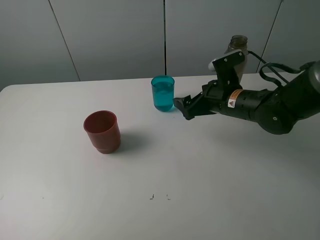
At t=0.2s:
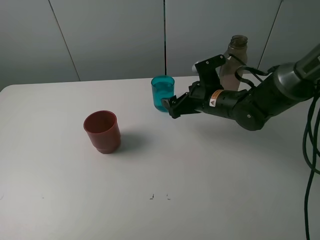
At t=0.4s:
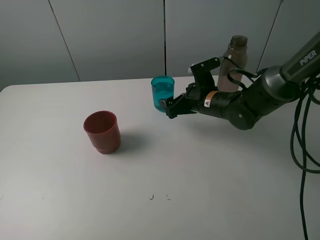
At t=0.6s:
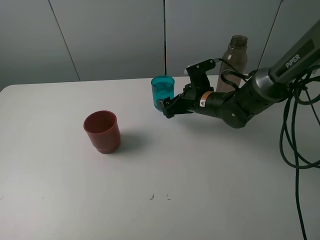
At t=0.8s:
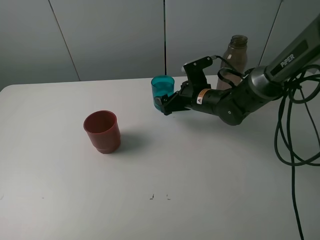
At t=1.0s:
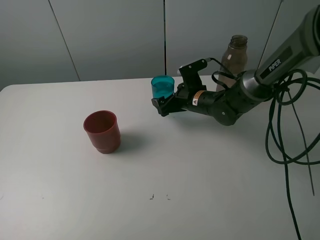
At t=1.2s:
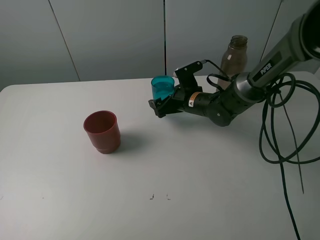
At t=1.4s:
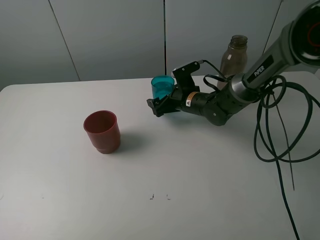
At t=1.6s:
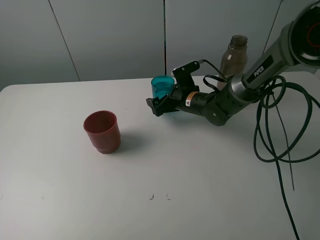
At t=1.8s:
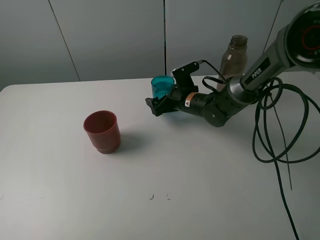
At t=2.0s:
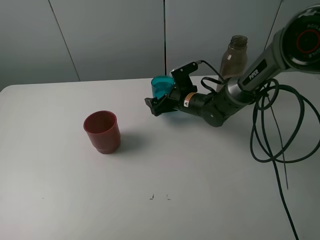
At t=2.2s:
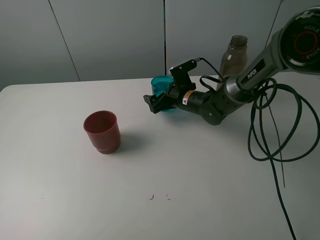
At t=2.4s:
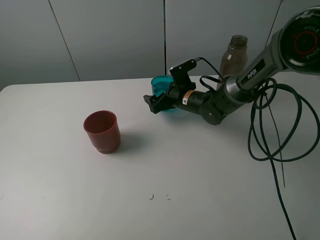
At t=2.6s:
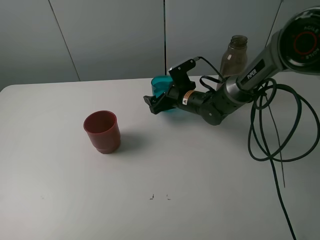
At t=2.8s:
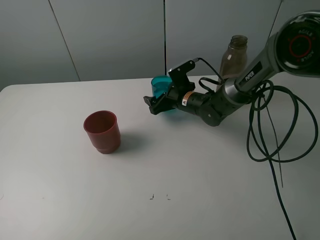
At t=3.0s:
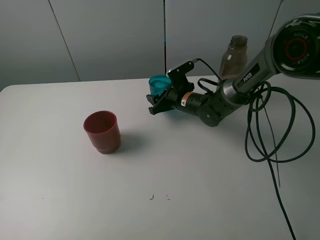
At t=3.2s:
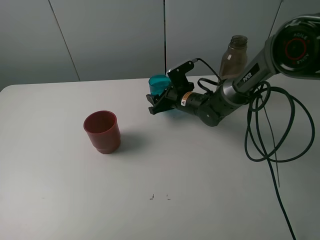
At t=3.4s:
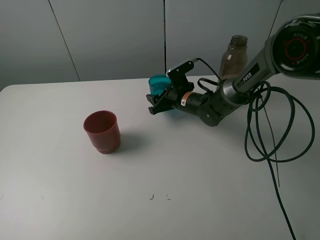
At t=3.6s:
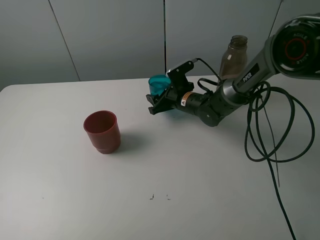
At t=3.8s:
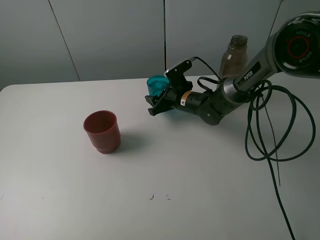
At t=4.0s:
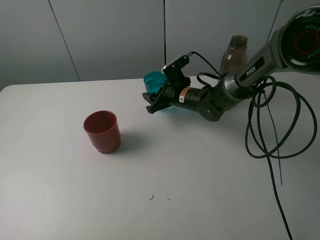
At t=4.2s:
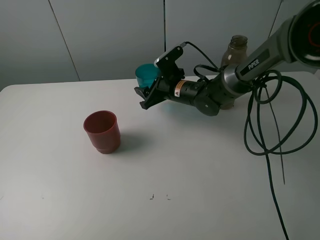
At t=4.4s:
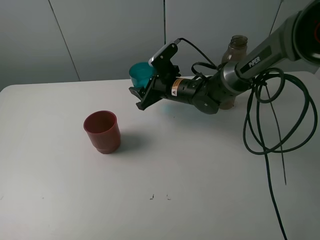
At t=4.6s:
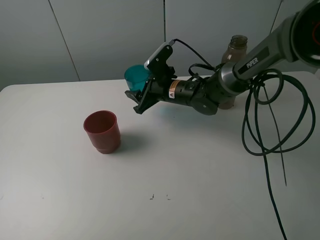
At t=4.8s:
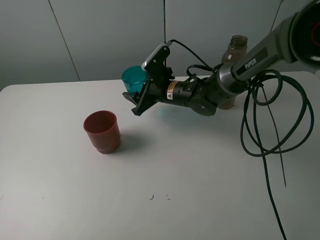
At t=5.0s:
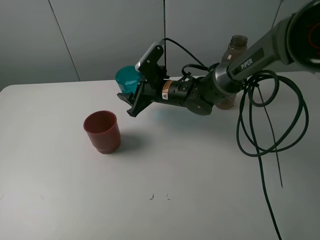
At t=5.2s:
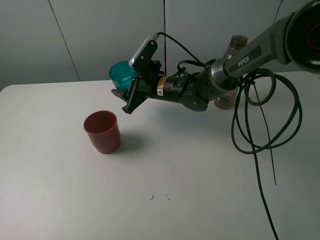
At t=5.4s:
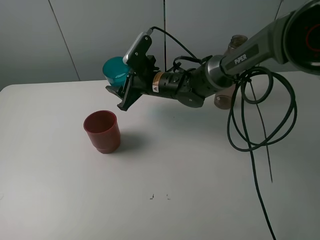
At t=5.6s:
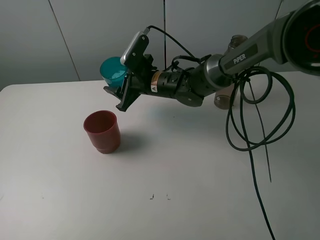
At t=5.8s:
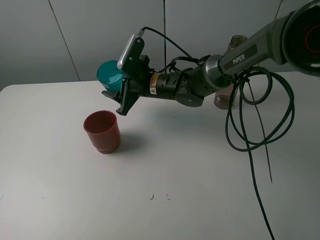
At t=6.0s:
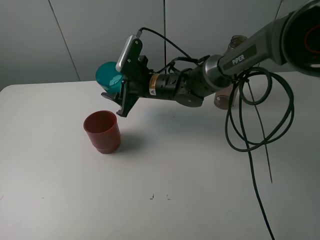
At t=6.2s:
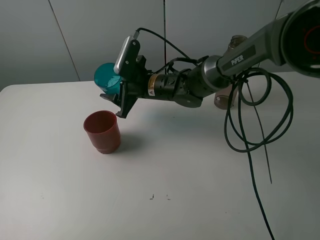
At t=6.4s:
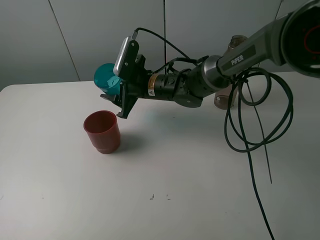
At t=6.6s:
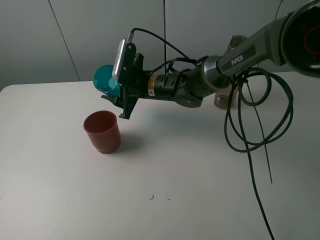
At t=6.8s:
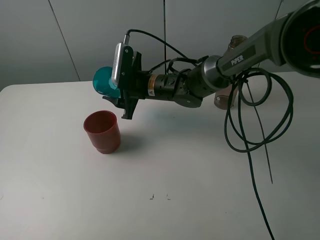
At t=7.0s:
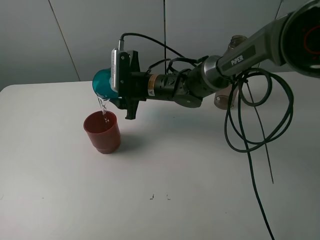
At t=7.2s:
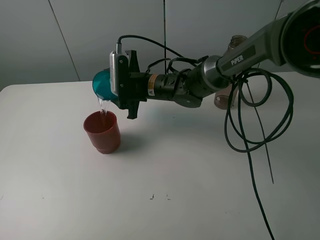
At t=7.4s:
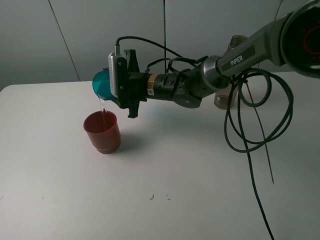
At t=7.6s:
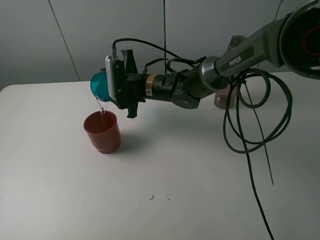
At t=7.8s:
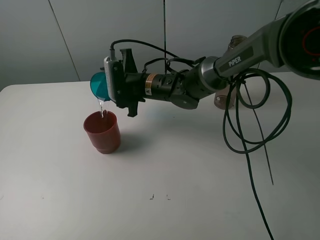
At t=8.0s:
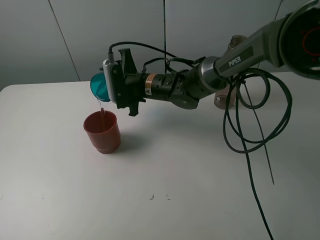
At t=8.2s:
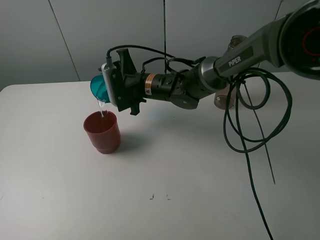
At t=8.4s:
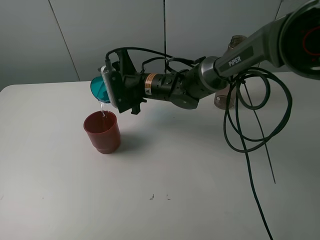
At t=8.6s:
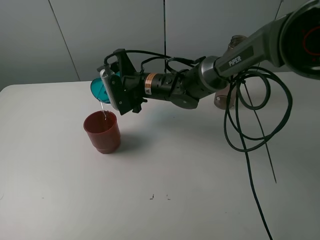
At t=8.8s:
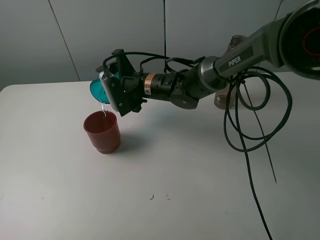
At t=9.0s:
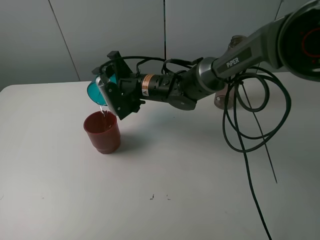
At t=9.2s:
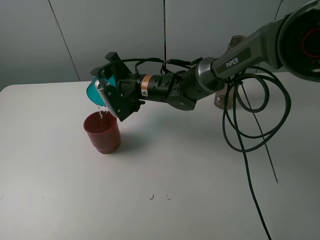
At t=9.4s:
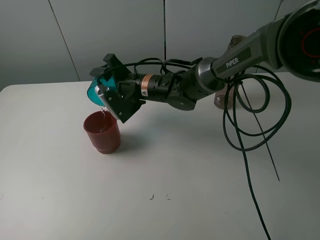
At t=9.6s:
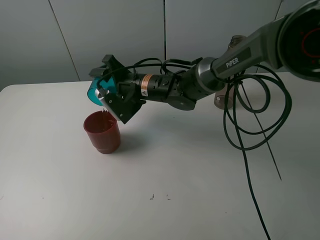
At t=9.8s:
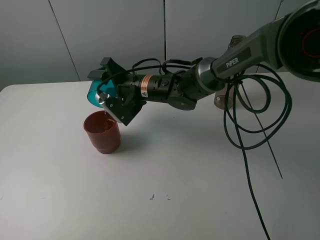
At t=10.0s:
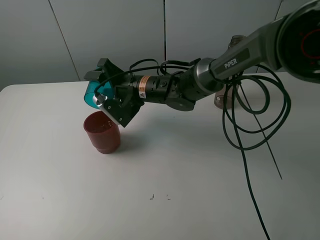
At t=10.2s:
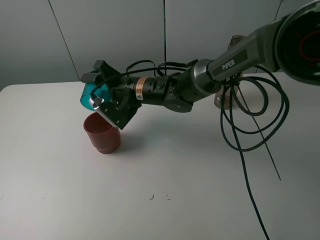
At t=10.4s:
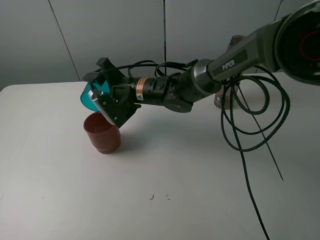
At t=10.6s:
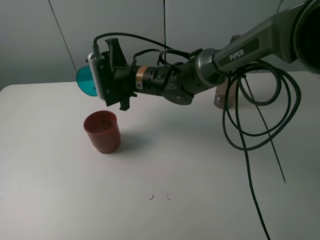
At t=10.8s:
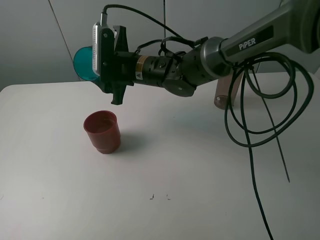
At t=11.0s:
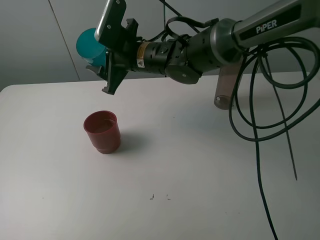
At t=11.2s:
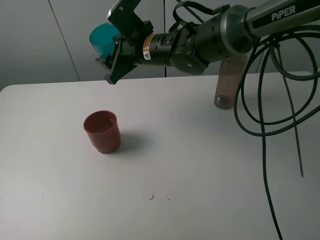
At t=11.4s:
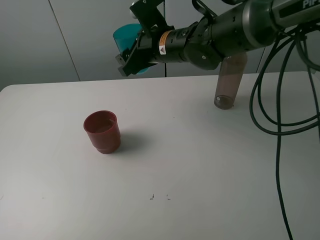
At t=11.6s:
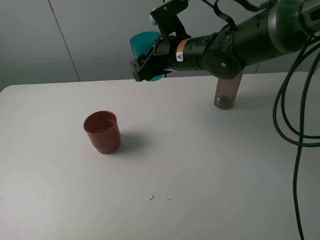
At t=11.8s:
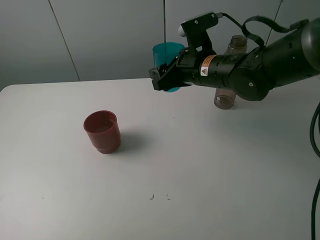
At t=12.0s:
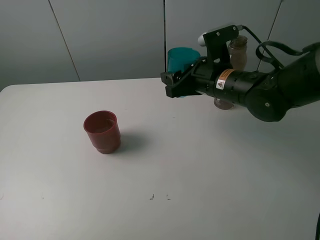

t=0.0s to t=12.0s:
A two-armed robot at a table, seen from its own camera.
Task of the whole recording: pick up the bottle and pour water into the cup, then pick up the cup containing water and pour it into another cup.
Step, t=0.0s to t=3.2s: Grasp the blue cup with the right gripper.
Step, t=3.4s to t=10.4s: Pour water from blue cup to red cup with the right gripper.
t=0.0s to t=1.6s: The right gripper travels forward, downward and to the left by roughly 10 cm.
t=1.6s to t=3.0s: The right gripper closes its fingers.
t=3.0s to t=4.4s: The right gripper shifts some 5 cm upward.
t=4.4s to t=6.0s: The right gripper heads to the left, covering roughly 5 cm.
t=9.0s to t=10.4s: There are only small adjustments of the grippers.
t=10.4s to t=12.0s: The right gripper moves to the right, approximately 15 cm.

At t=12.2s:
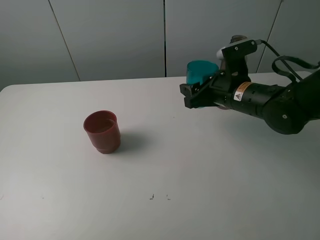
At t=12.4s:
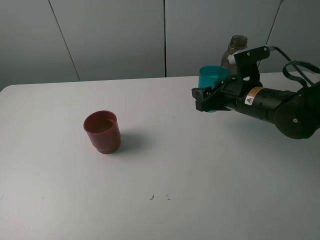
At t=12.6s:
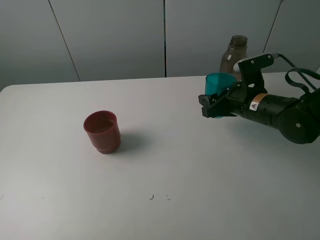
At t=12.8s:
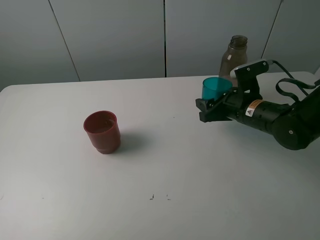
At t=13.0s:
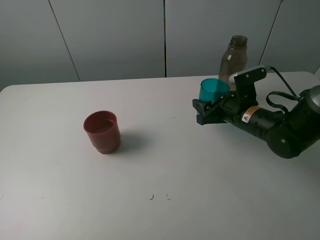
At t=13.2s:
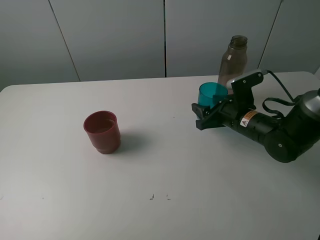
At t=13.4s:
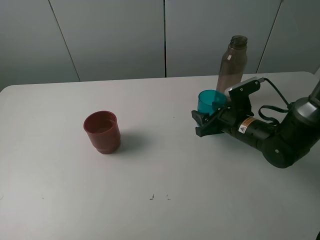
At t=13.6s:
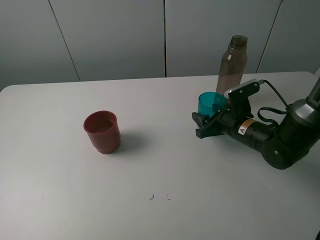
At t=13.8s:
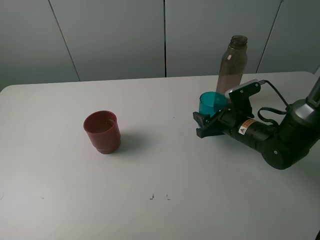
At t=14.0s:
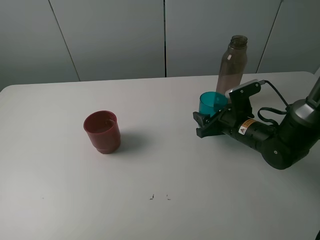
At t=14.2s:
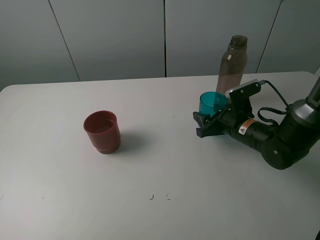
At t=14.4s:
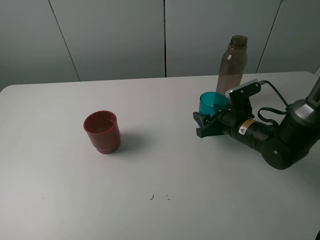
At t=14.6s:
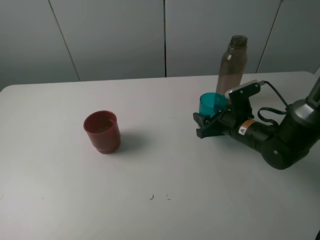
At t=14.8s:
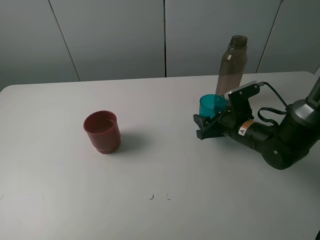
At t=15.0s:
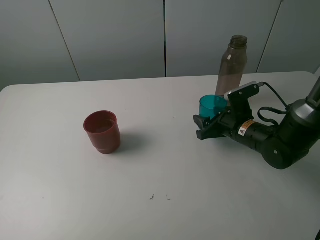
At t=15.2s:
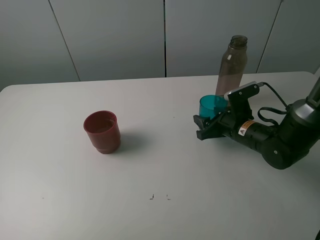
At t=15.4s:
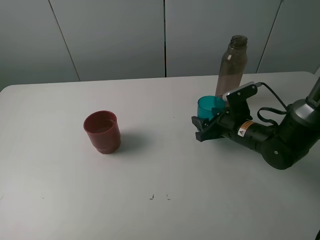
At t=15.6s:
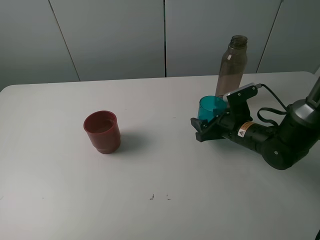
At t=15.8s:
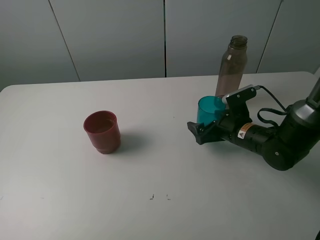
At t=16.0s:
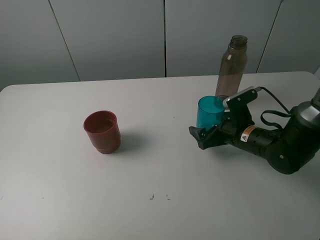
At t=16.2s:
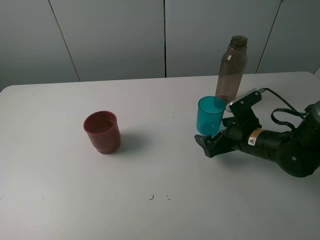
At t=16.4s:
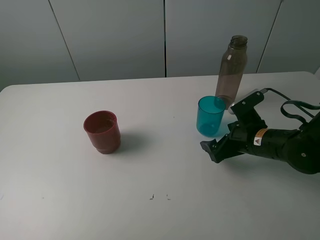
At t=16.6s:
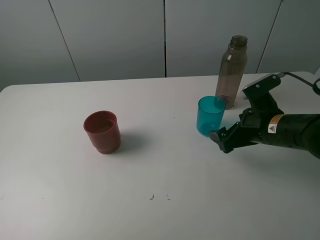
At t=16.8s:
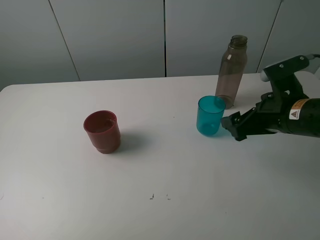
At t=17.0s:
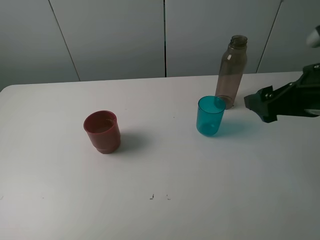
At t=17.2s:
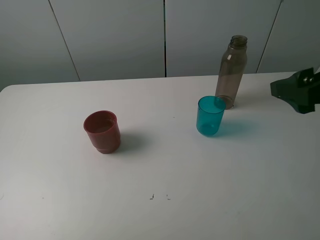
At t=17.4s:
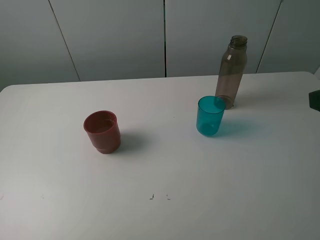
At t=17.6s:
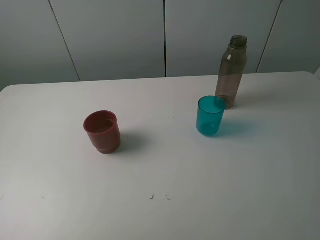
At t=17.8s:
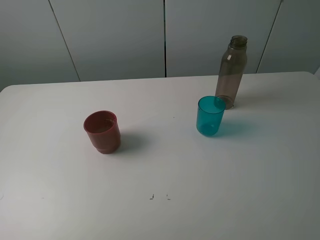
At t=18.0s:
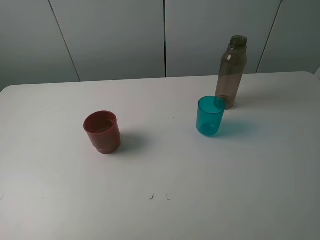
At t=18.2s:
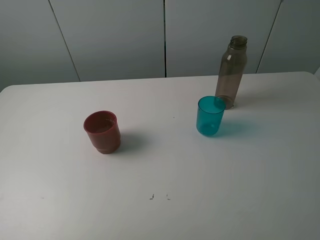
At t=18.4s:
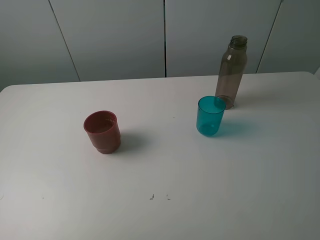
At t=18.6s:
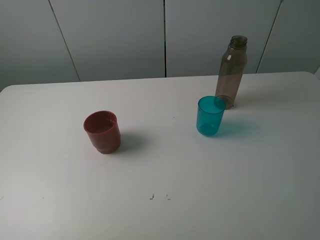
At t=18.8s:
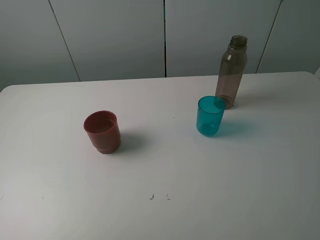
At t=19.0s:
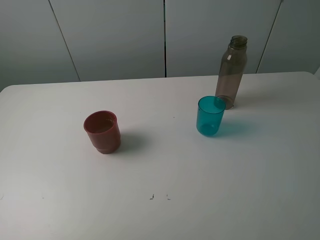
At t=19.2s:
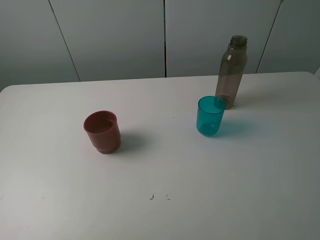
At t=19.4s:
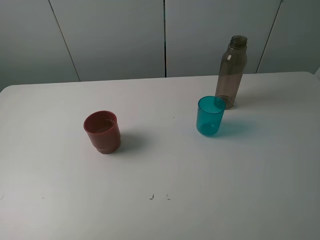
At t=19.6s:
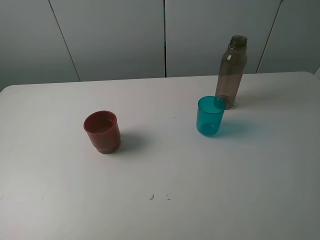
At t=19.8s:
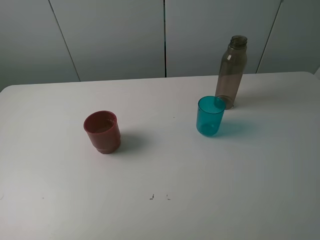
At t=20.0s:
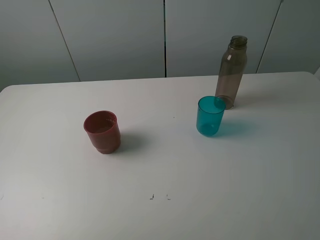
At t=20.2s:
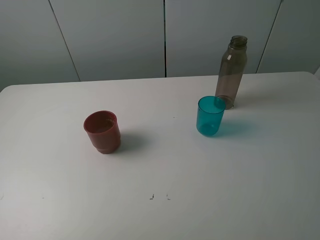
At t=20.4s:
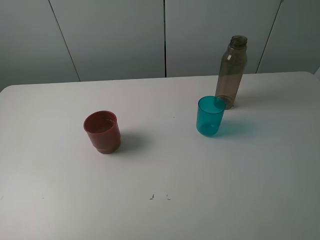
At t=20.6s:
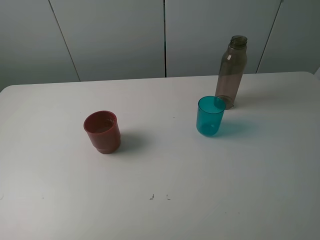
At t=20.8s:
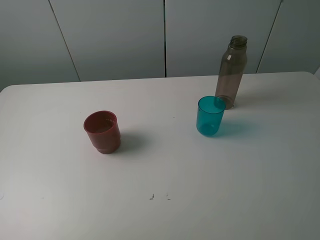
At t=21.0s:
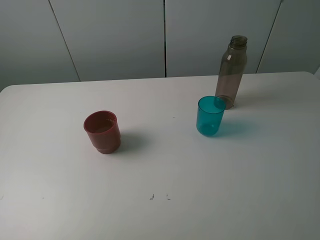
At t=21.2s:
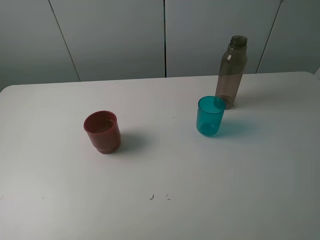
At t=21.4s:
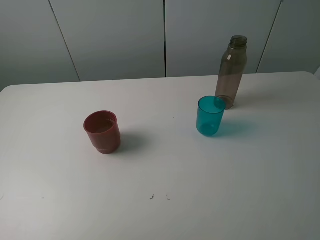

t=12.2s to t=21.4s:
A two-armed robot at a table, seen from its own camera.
Task of the whole recording: pick up the bottle and pour water into the cup, then pick up the cup containing water and pour it into another cup.
Step, t=12.2s to t=16.0s: Place the blue cup with the right gripper.
t=12.2s to t=13.8s: The right gripper shifts approximately 10 cm downward.
t=13.8s to t=15.2s: Neither gripper changes place.
t=15.2s to t=16.8s: The right gripper travels upward and backward by approximately 15 cm, and opens.
t=16.8s to t=18.4s: The right gripper heads backward and upward, covering roughly 25 cm.
t=19.8s to t=21.4s: Neither gripper changes place.
